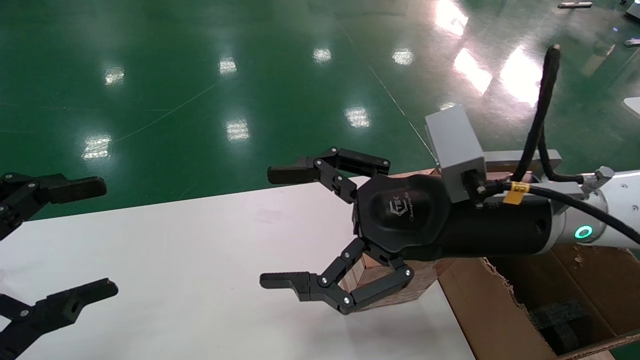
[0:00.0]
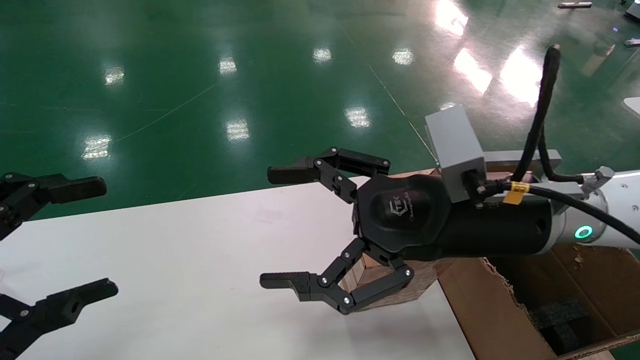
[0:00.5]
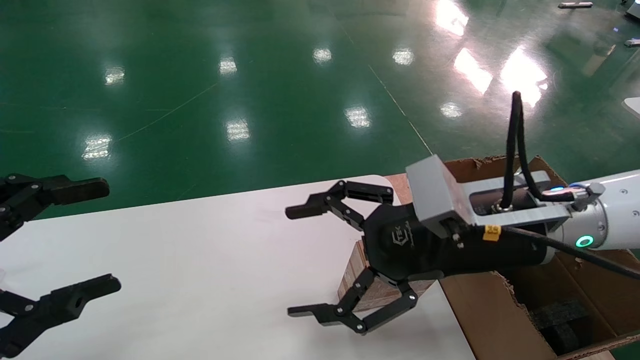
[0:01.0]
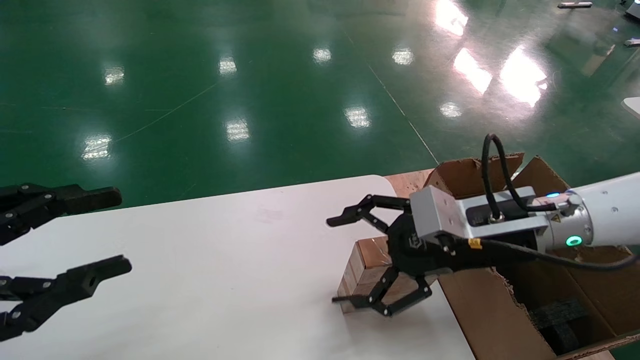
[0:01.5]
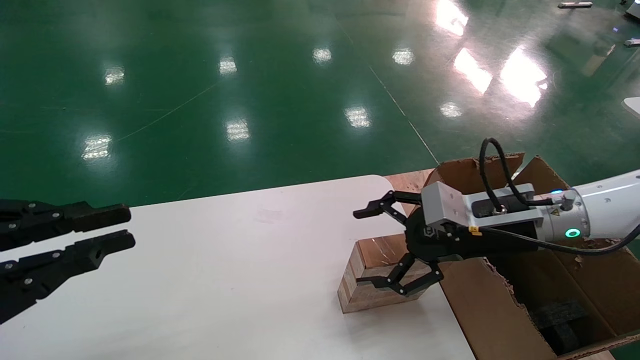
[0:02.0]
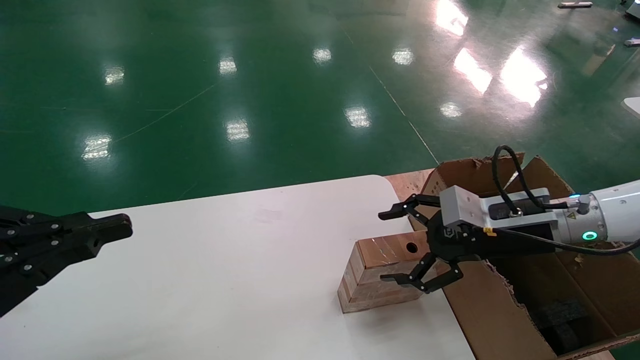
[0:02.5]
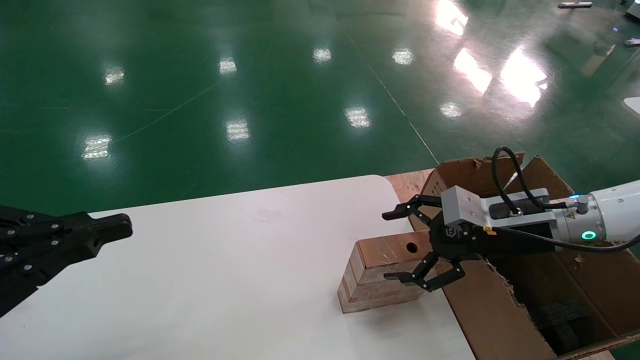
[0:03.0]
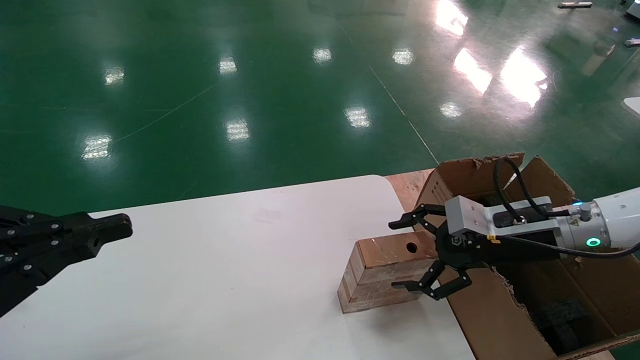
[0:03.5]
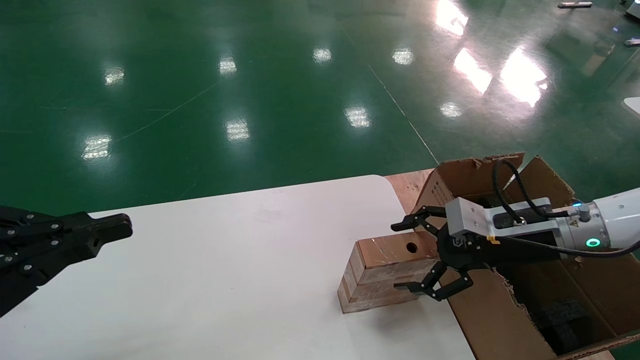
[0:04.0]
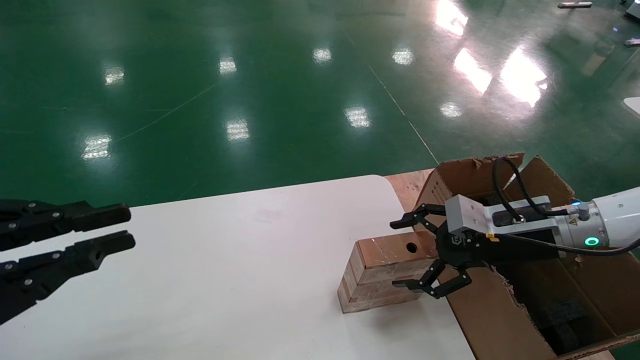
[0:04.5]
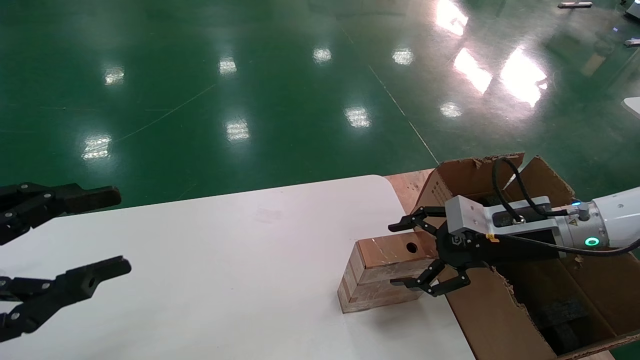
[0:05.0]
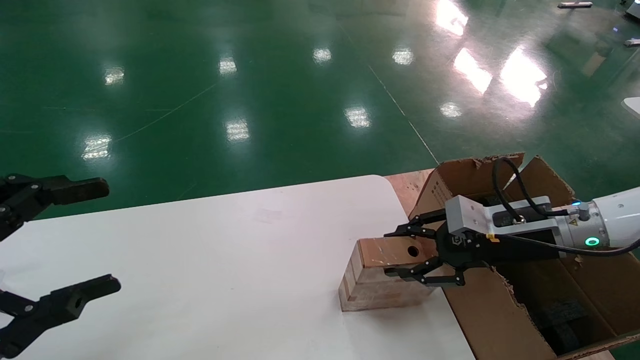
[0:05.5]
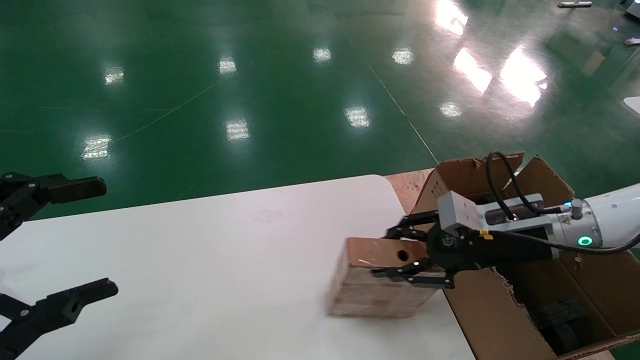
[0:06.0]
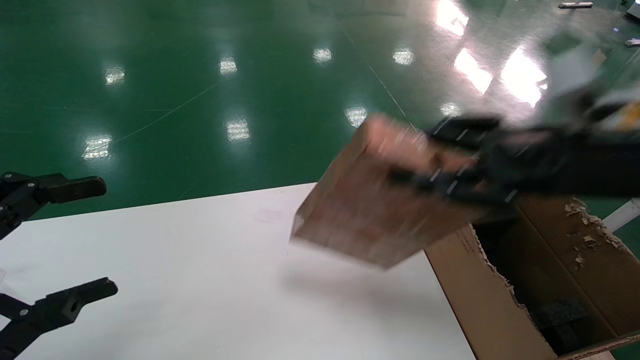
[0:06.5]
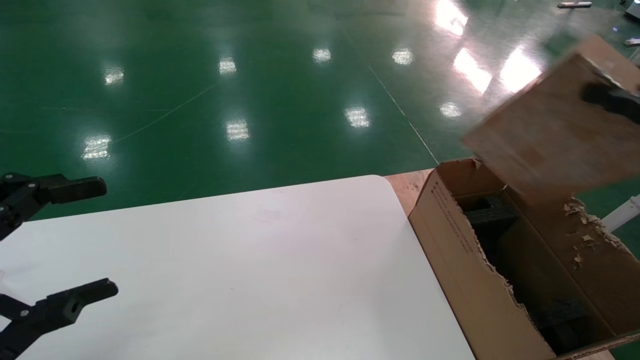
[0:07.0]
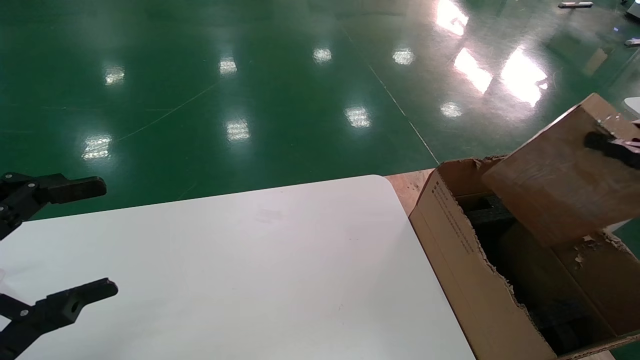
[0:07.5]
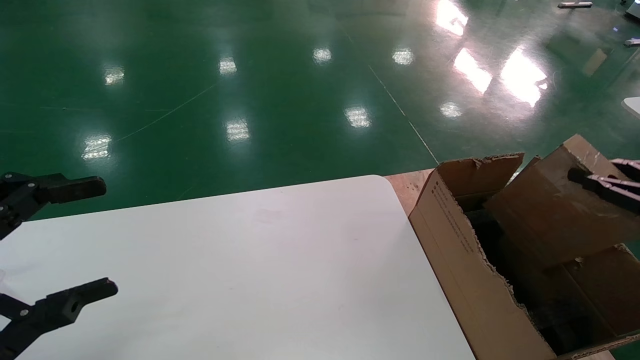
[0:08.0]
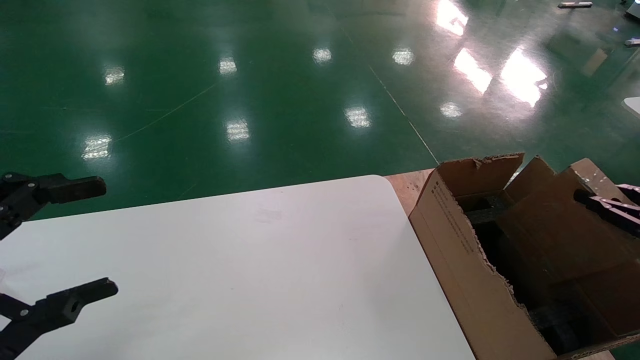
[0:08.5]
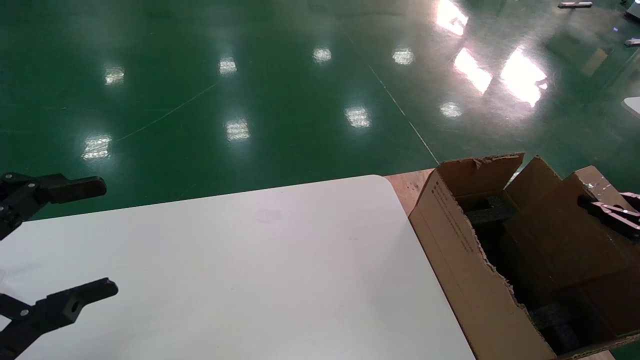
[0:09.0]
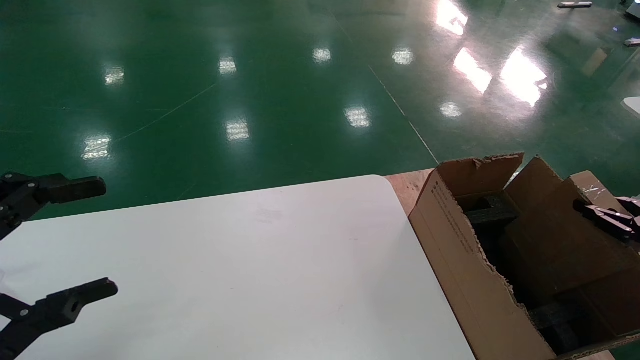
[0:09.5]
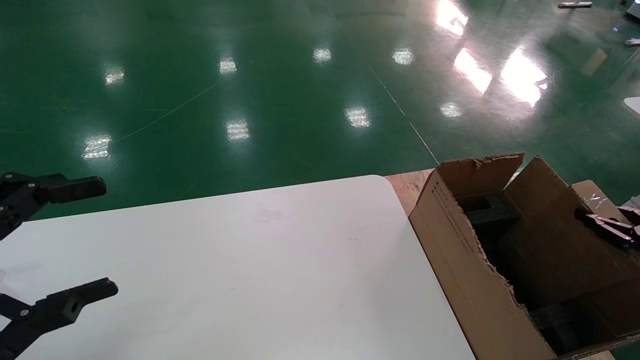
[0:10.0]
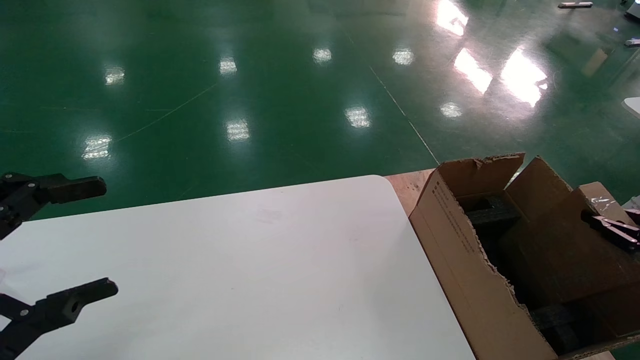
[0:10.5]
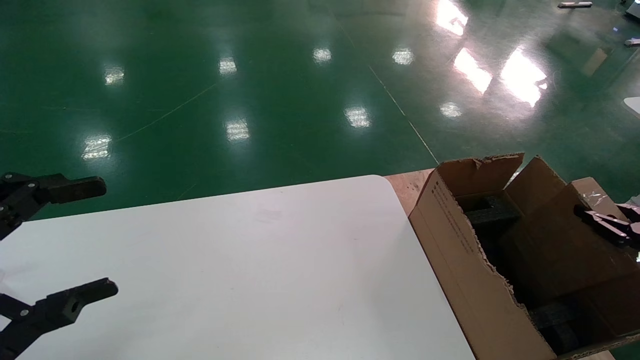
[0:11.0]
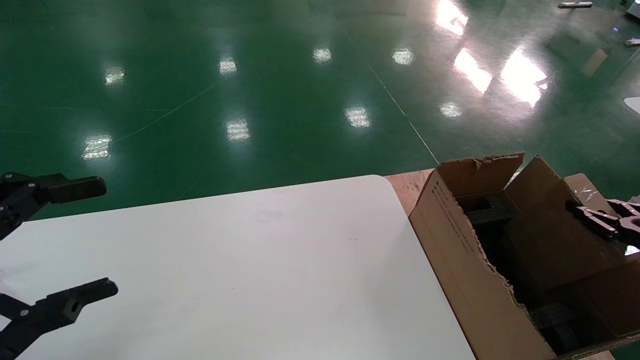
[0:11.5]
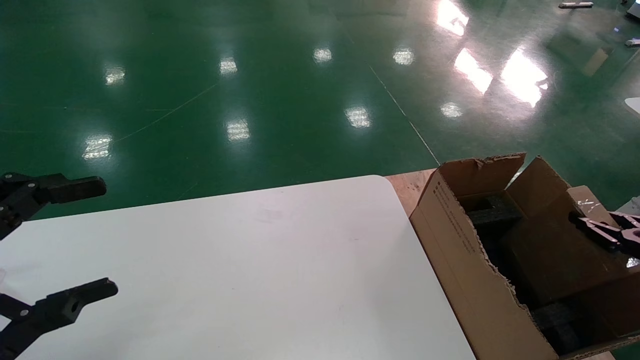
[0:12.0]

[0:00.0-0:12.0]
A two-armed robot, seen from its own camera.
Task of the whole recording: put the box on the table into the big box.
Step, 0:01.5 to 0:05.5: Pick up the mouse and the power cord paper box.
0:00.0 to 0:02.0: The right gripper moves to the right, forward and downward, approximately 15 cm. The left gripper closes.
0:02.0 to 0:04.0: The right gripper shifts approximately 5 cm to the right.
0:04.0 to 0:06.0: The right gripper closes its fingers; the left gripper opens up.
0:06.0 to 0:08.0: The right gripper goes roughly 25 cm to the right and backward.
0:08.0 to 0:10.0: The right gripper heads downward, covering some 10 cm.
0:10.0 to 0:12.0: The grippers make only small movements.

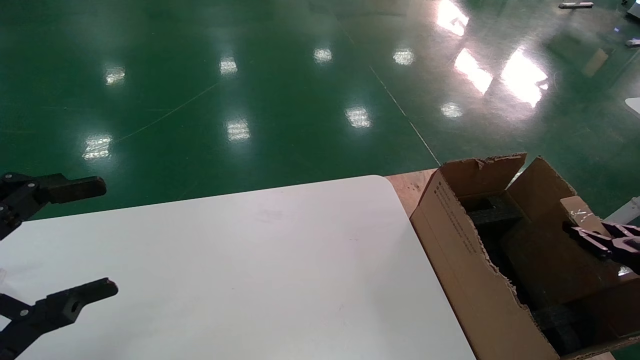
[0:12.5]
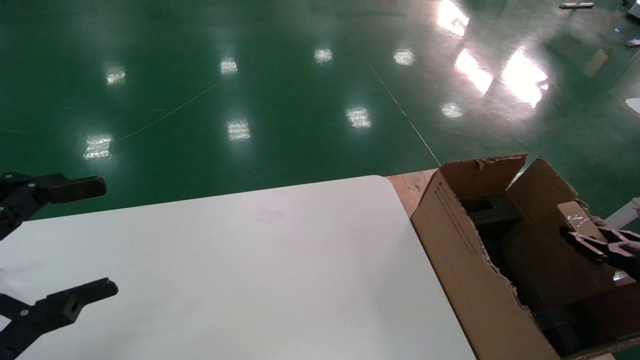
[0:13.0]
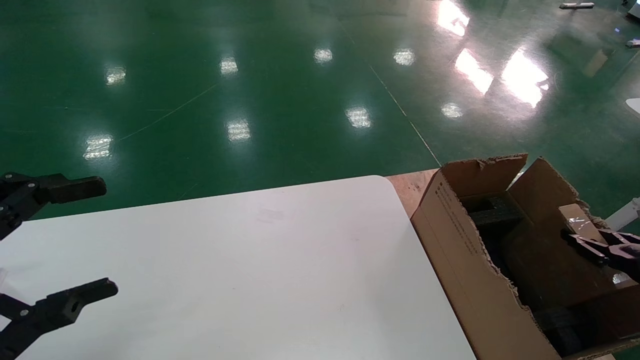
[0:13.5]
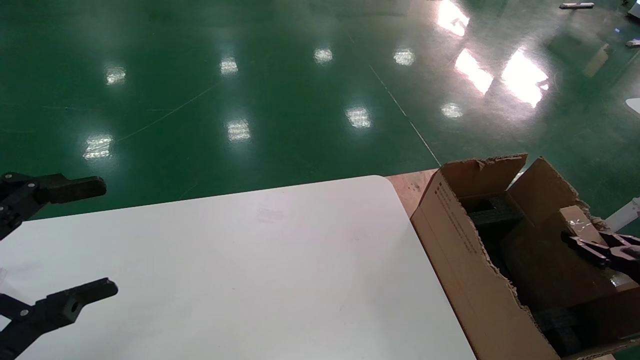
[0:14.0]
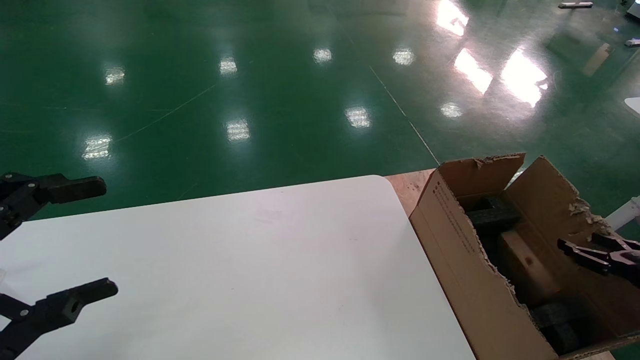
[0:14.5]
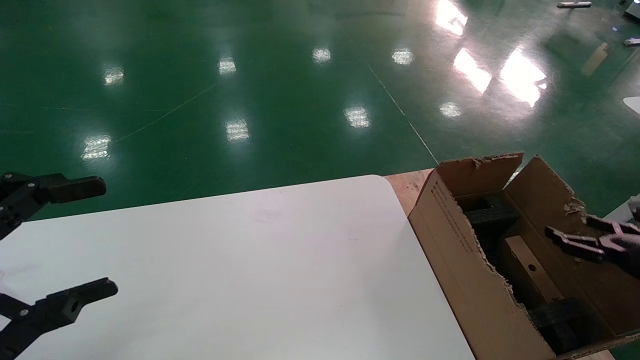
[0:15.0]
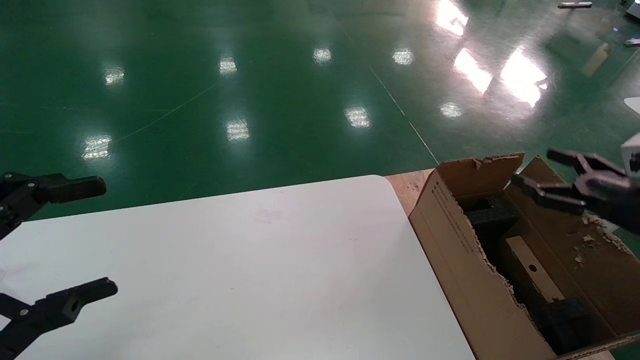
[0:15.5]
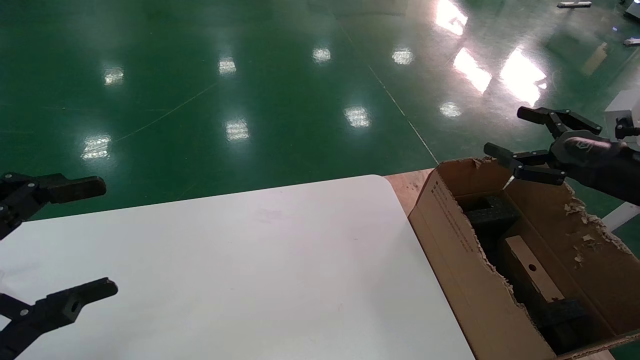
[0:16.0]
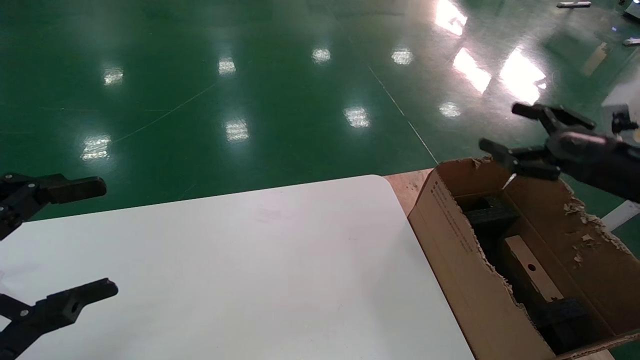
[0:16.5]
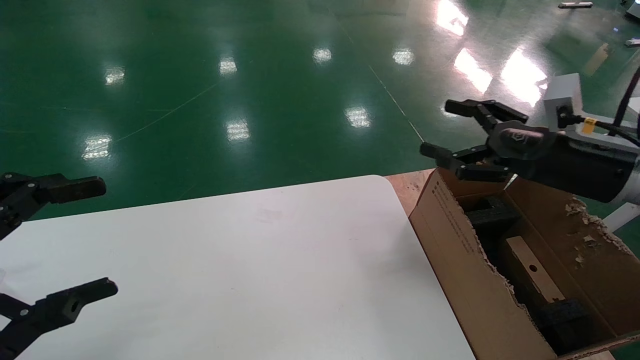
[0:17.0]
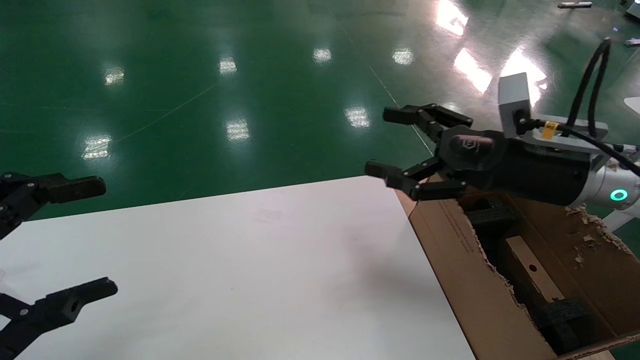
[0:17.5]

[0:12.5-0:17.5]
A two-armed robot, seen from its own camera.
Task of the whole recording: put the box on the table into the big box.
Step, 0:12.5 to 0:14.5: Place the mouse and the power cord paper box into the container.
0:12.5 to 0:15.0: The right gripper opens.
0:15.0 to 0:17.5: The right gripper shifts some 30 cm to the left and upward.
